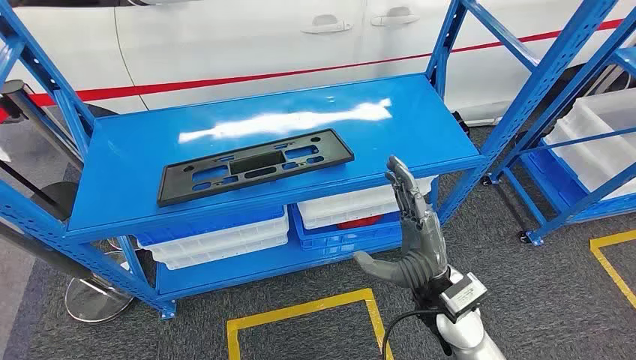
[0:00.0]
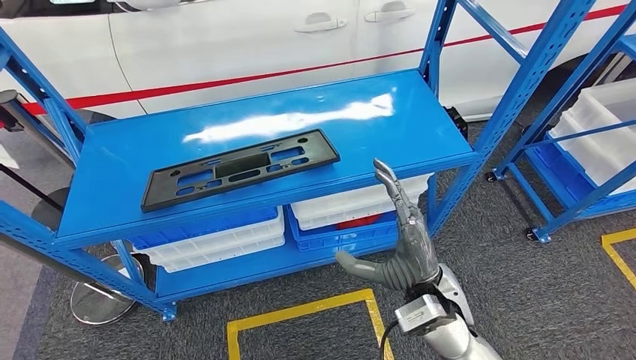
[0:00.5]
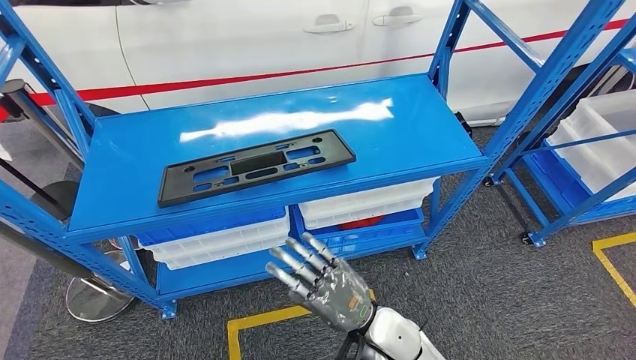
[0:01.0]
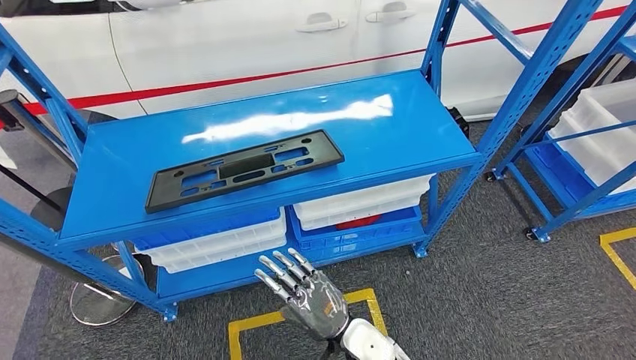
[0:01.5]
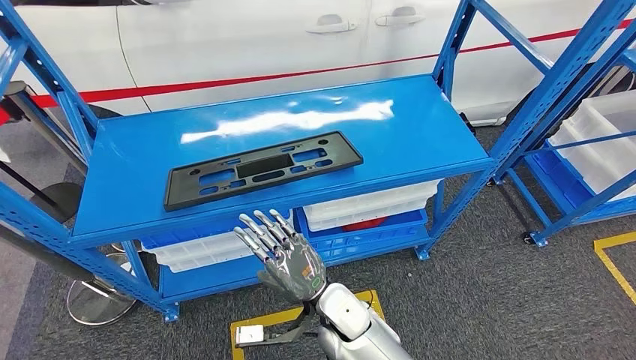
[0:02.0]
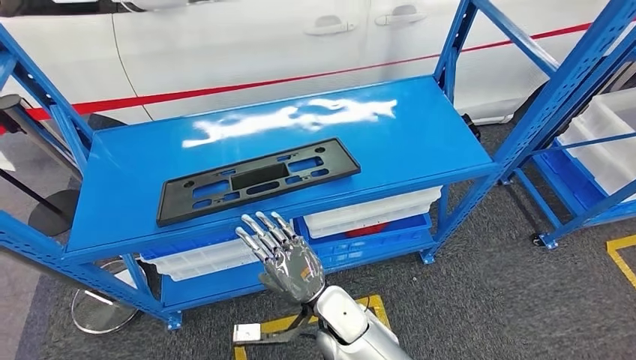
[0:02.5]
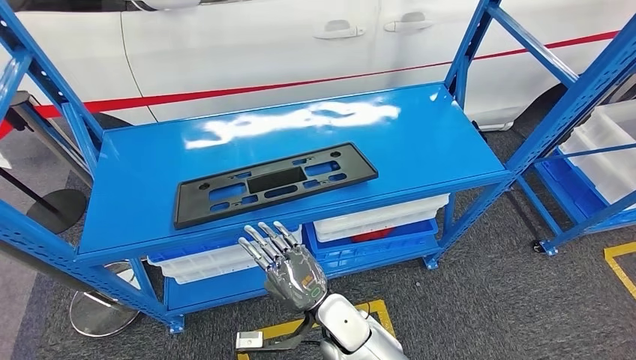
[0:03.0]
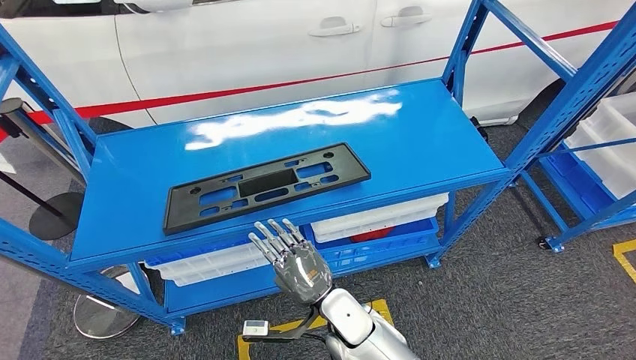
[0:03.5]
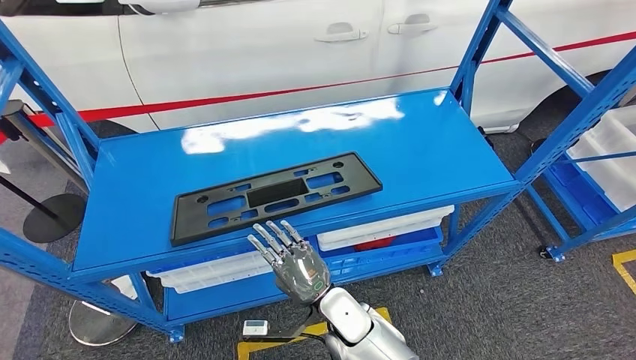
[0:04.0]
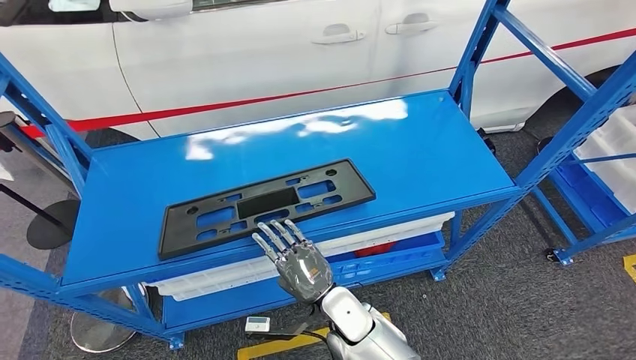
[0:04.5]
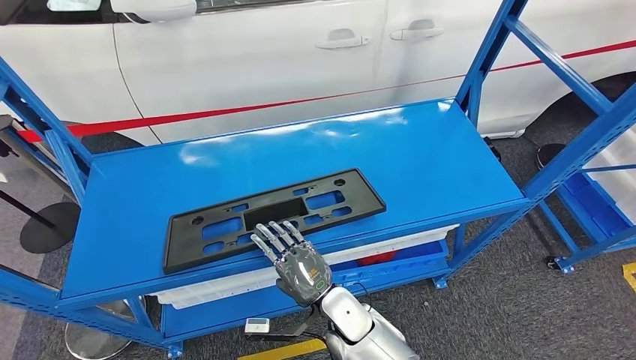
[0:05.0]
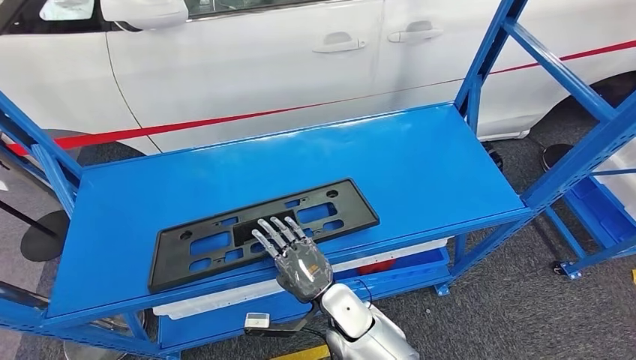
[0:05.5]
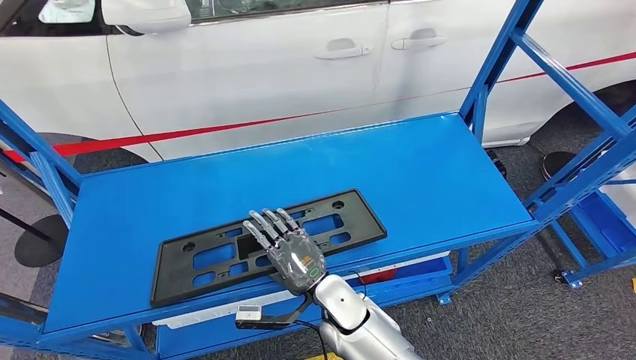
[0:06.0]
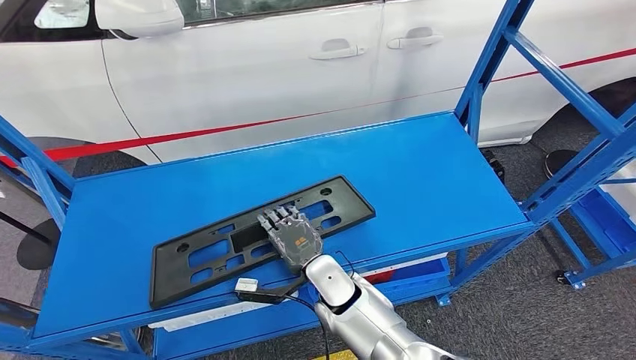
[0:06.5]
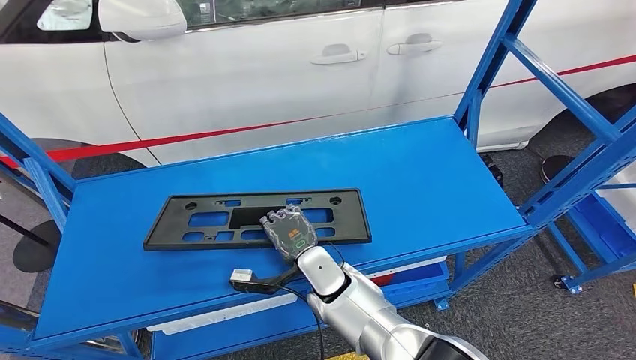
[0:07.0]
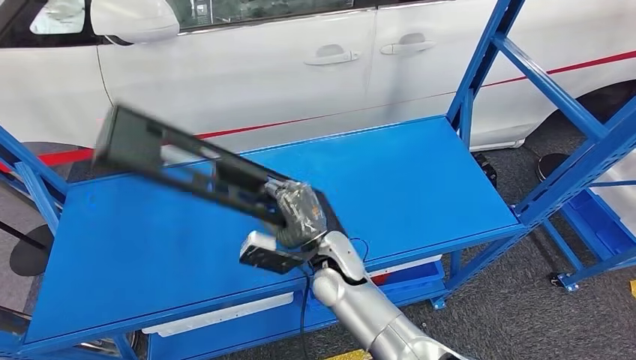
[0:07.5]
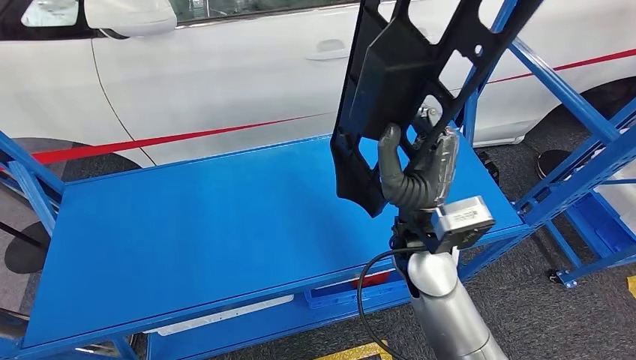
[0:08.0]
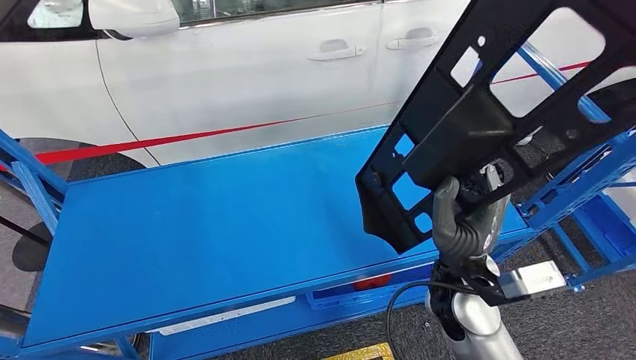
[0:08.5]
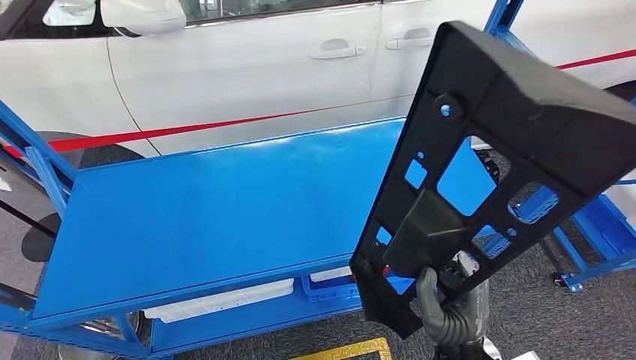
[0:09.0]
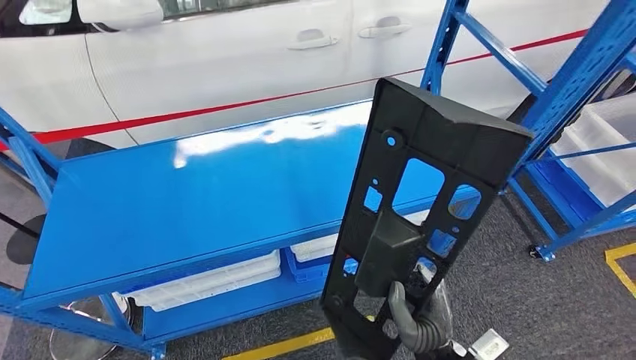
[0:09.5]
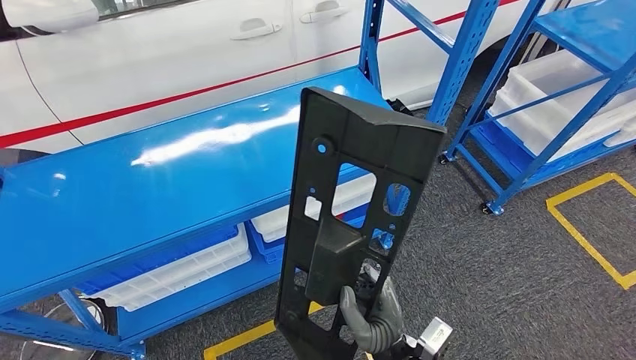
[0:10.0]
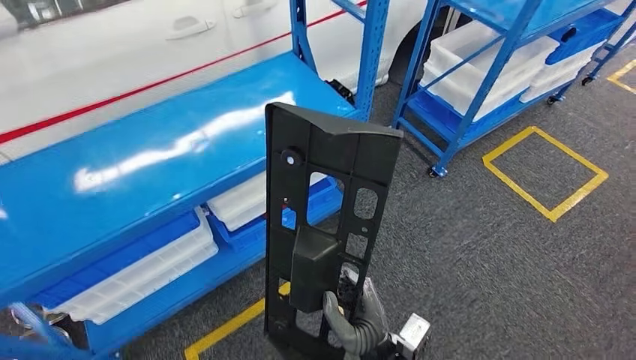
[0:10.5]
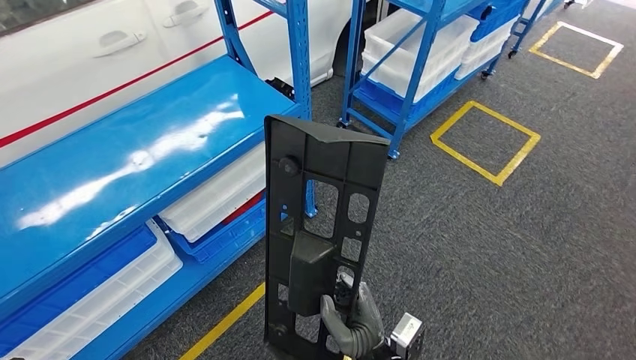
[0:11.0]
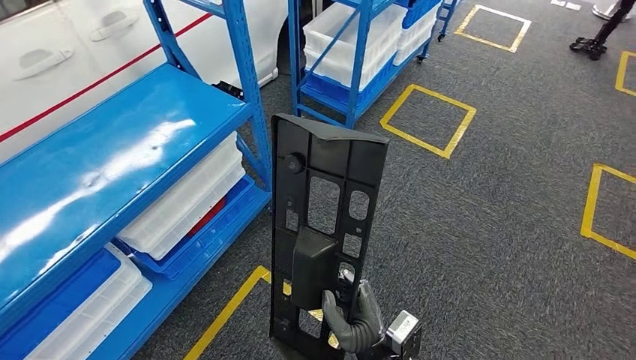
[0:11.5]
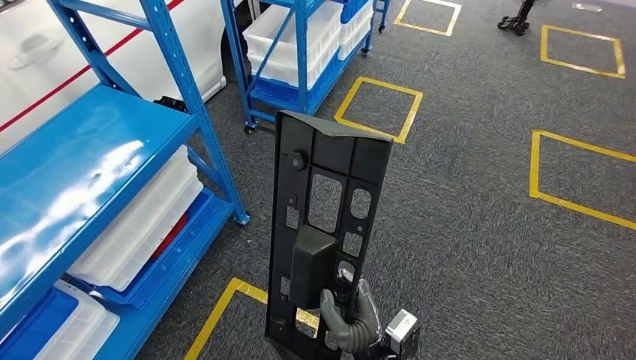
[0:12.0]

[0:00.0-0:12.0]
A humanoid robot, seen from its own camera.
Step, 0:00.0 to 0:08.0: Pick up the large parts from the shelf.

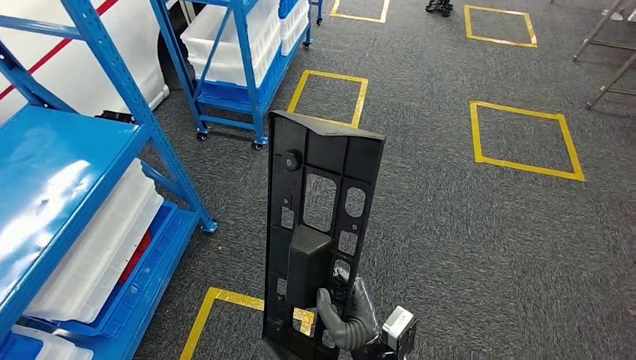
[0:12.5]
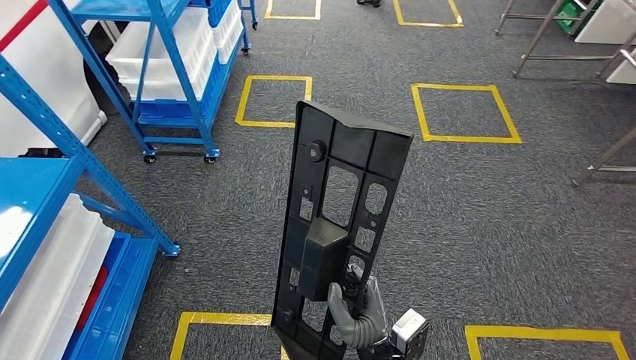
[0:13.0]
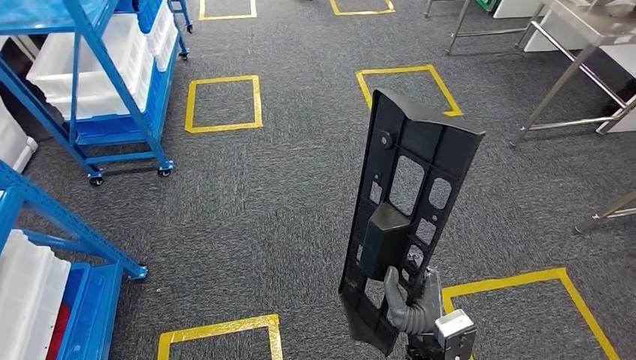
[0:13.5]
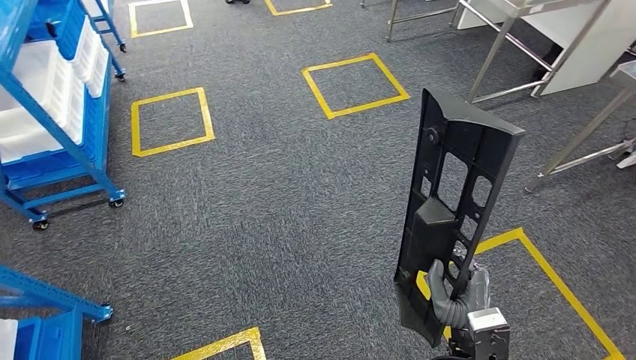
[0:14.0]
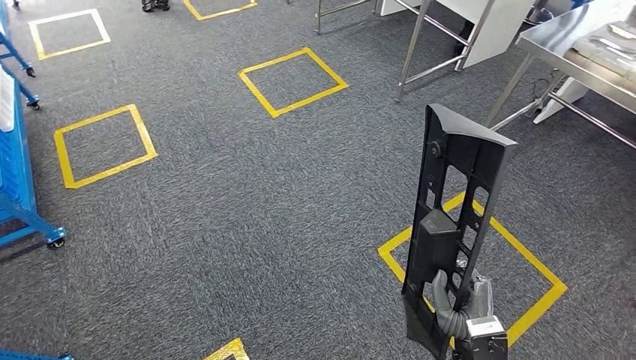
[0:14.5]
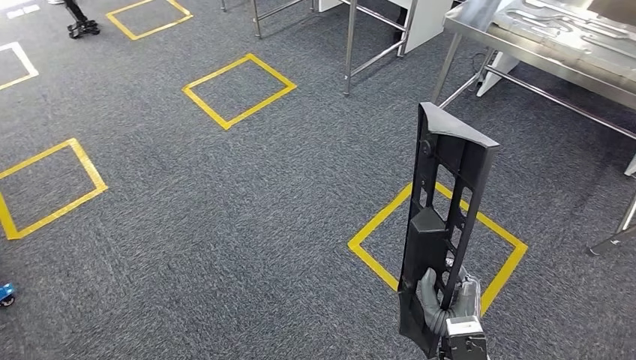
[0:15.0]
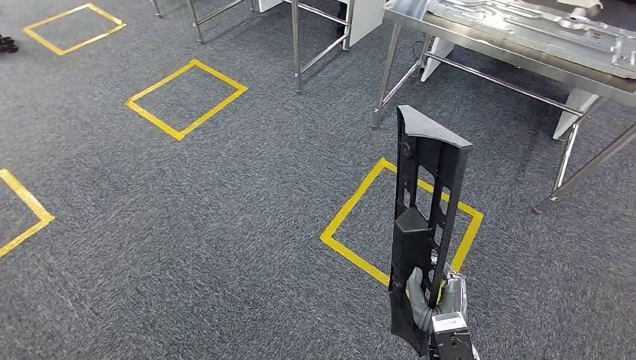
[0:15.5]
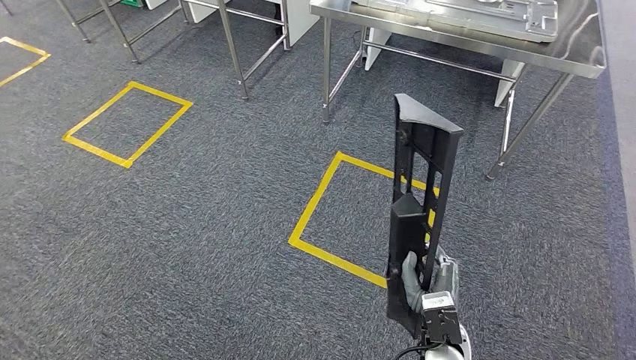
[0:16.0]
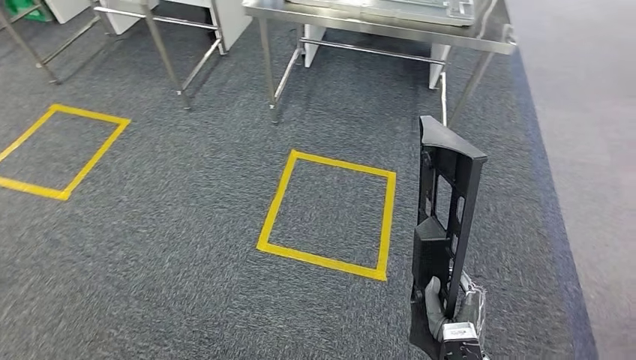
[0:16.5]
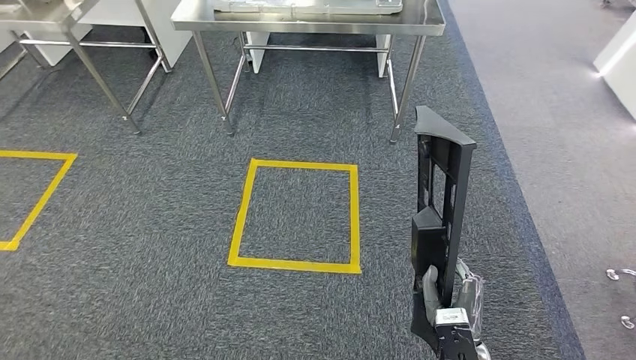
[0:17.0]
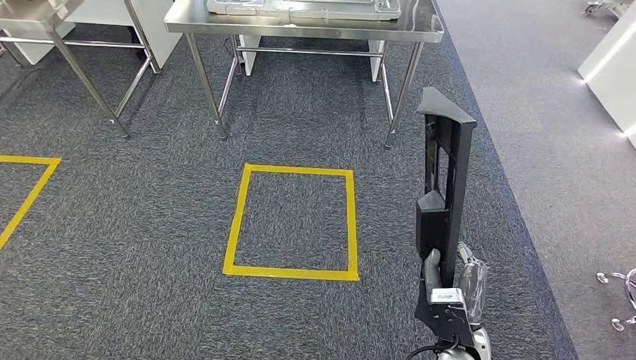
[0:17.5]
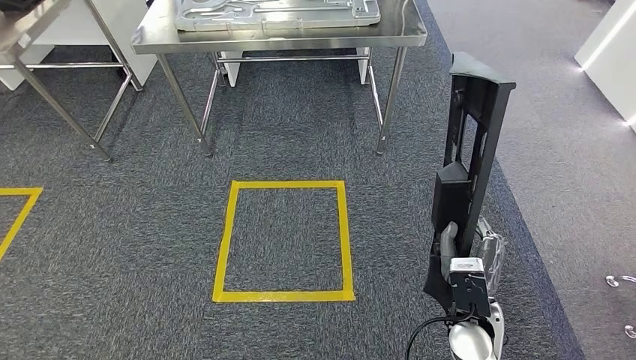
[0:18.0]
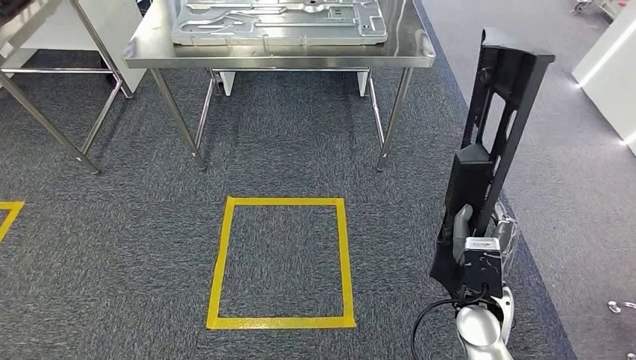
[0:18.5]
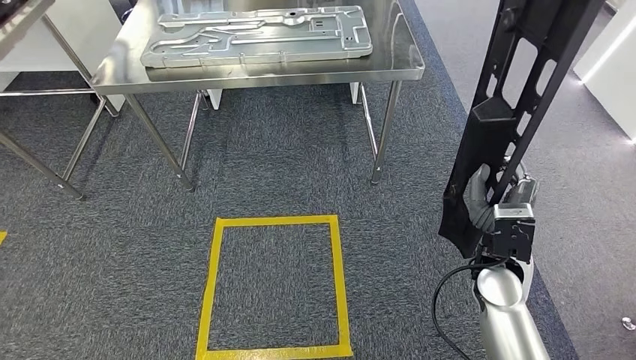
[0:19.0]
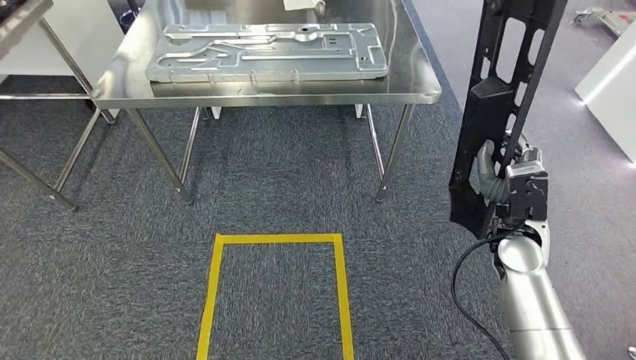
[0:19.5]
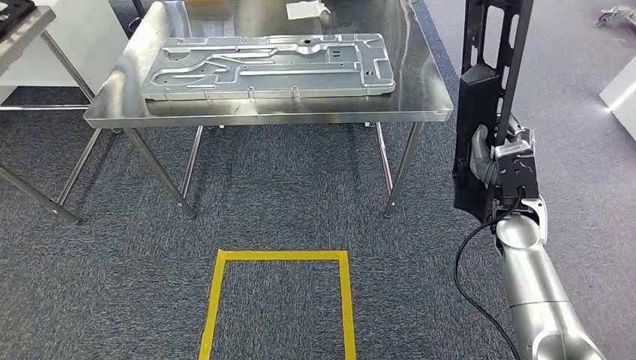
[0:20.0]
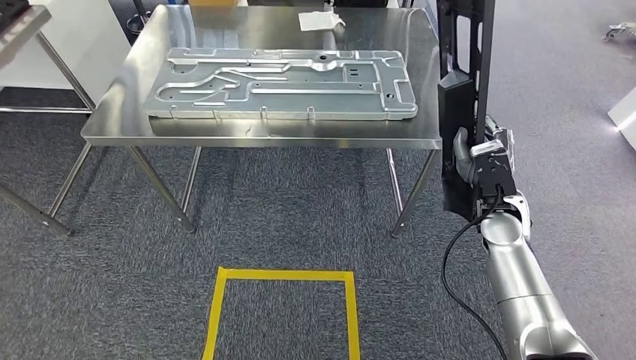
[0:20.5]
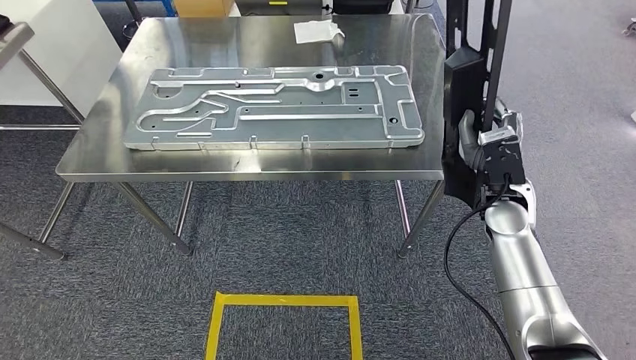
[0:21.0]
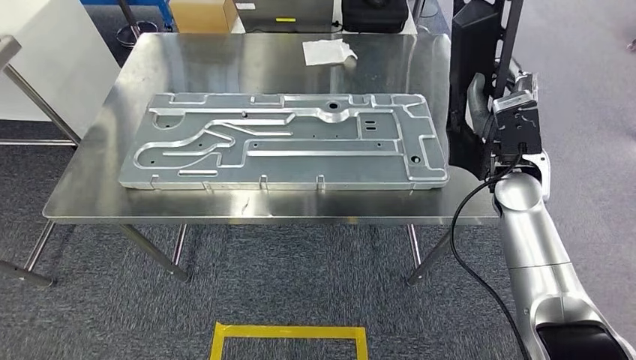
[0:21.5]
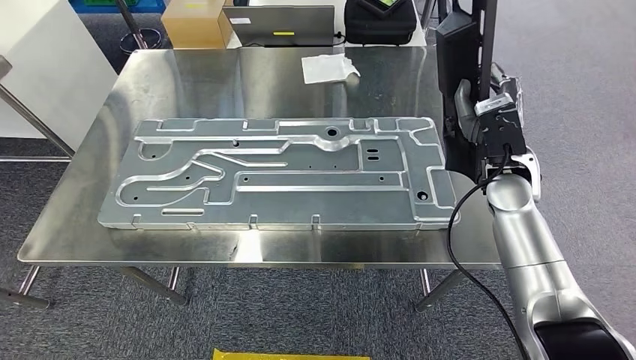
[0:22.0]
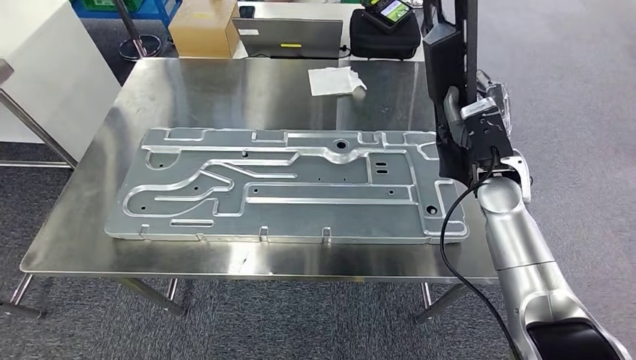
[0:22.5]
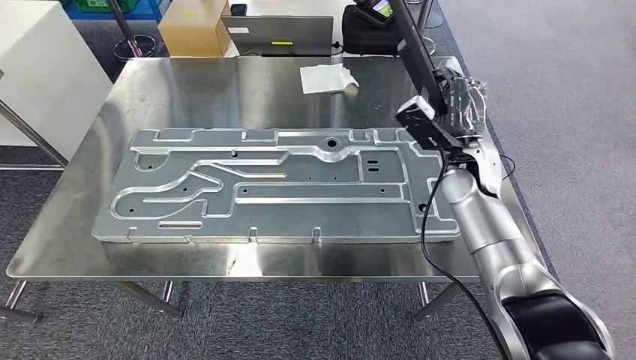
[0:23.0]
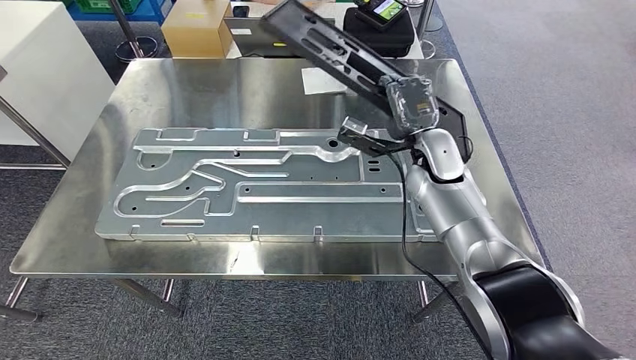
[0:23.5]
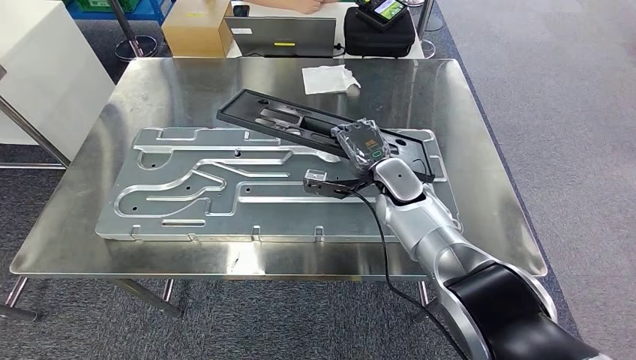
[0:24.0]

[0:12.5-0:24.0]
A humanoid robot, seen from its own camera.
Step, 0:12.5 to 0:20.5: Move the large parts to the workbench.
